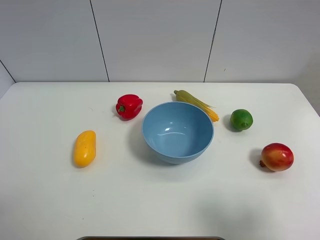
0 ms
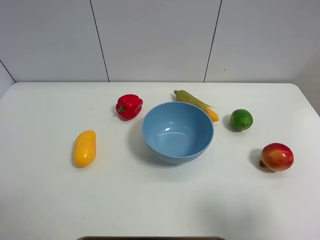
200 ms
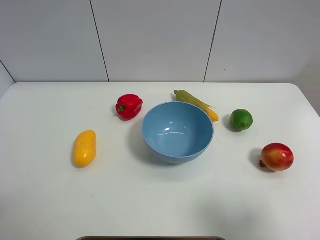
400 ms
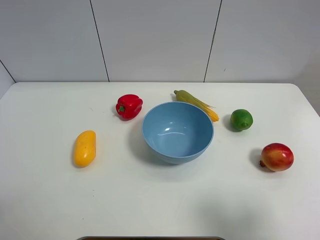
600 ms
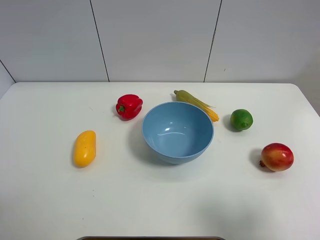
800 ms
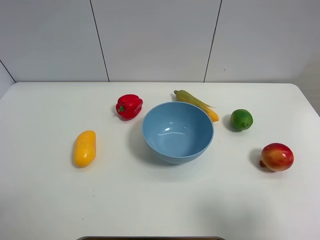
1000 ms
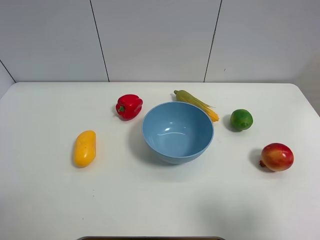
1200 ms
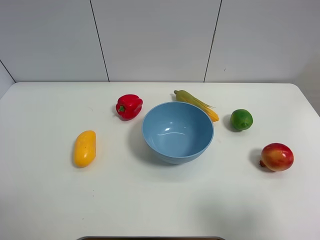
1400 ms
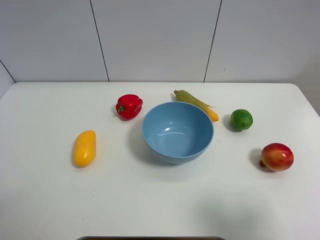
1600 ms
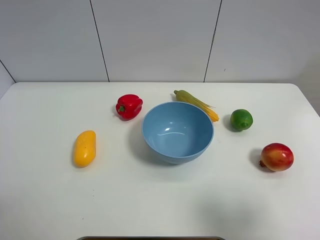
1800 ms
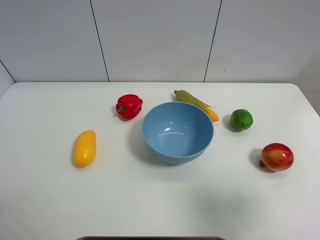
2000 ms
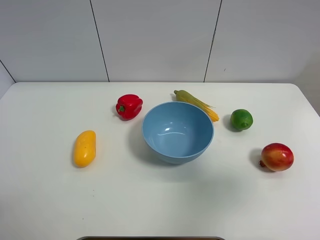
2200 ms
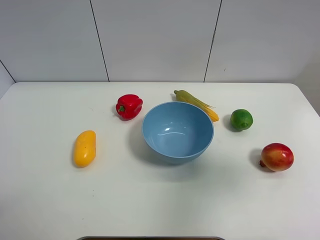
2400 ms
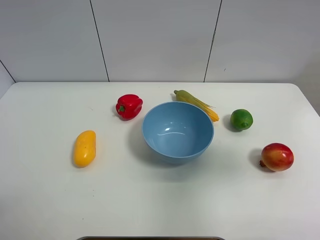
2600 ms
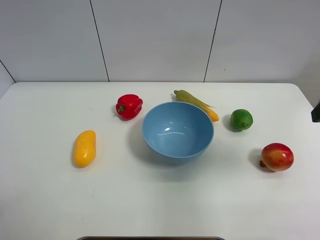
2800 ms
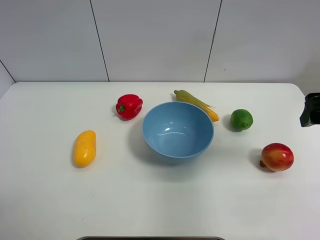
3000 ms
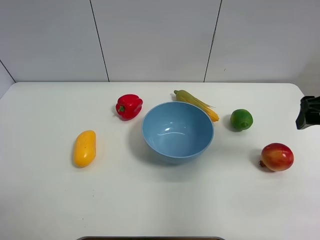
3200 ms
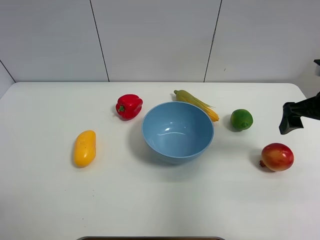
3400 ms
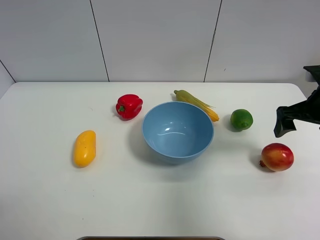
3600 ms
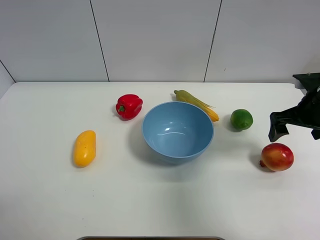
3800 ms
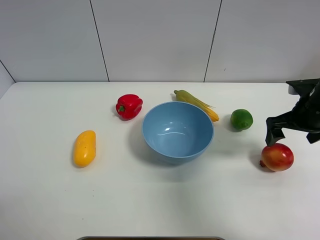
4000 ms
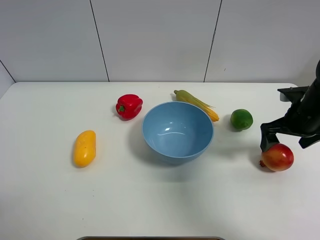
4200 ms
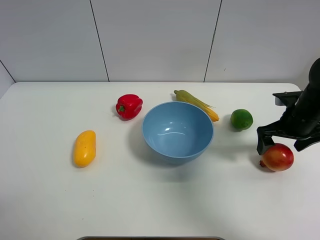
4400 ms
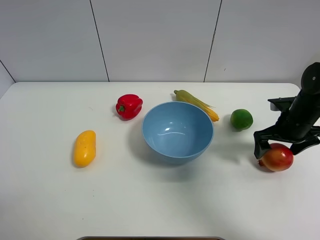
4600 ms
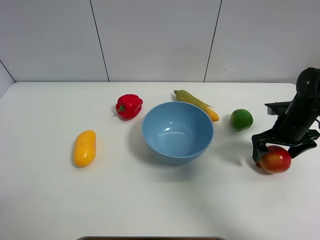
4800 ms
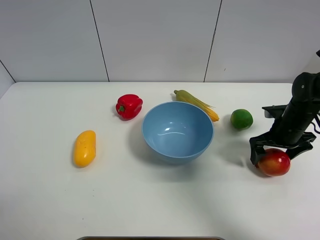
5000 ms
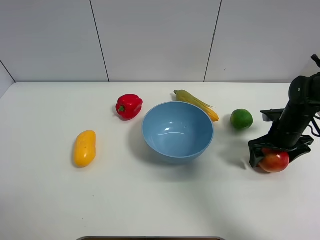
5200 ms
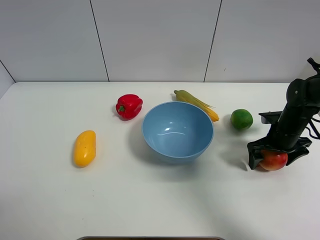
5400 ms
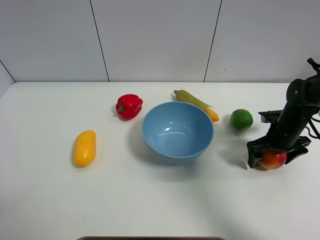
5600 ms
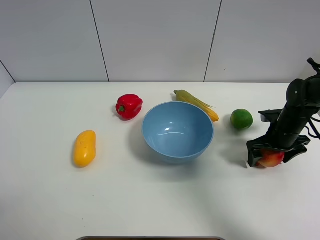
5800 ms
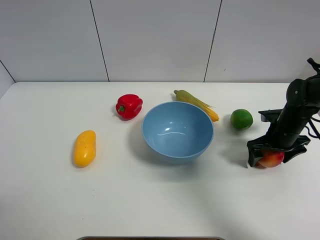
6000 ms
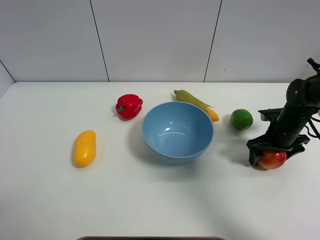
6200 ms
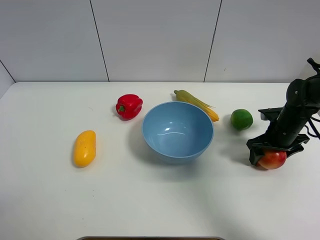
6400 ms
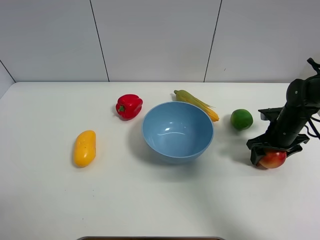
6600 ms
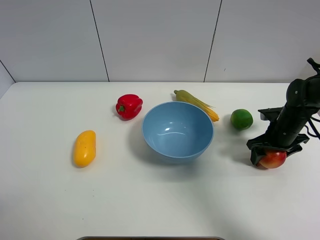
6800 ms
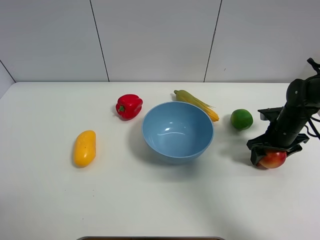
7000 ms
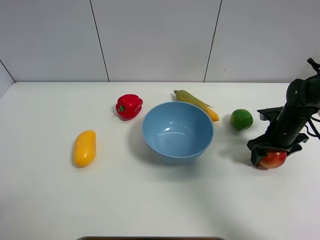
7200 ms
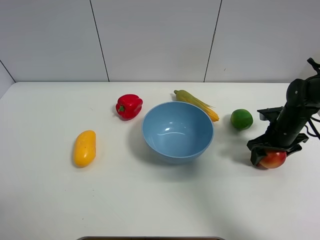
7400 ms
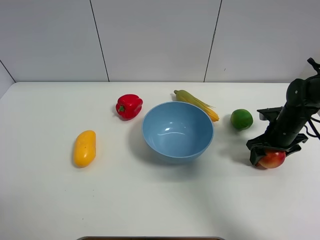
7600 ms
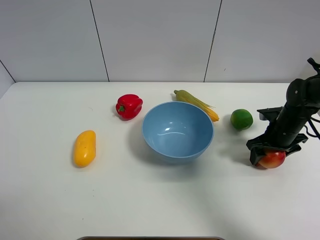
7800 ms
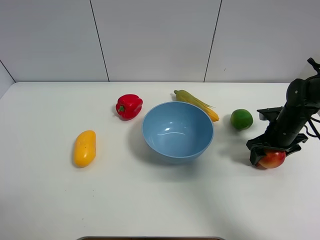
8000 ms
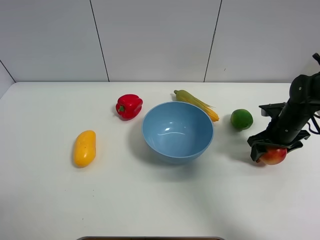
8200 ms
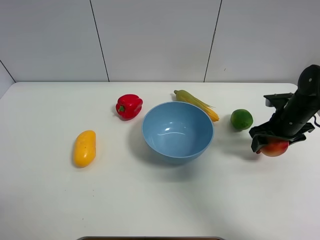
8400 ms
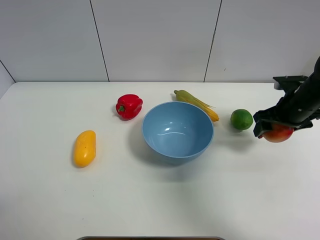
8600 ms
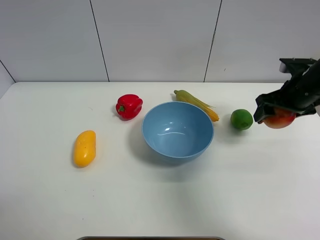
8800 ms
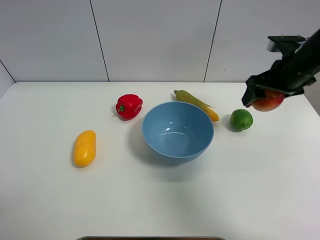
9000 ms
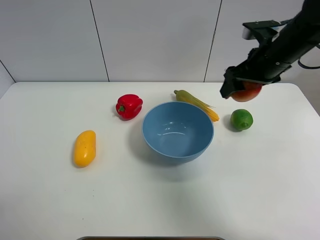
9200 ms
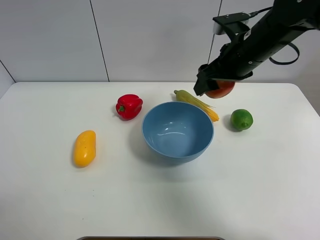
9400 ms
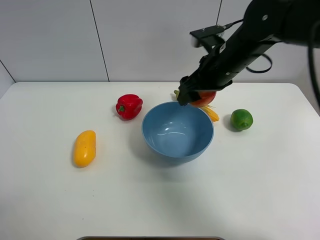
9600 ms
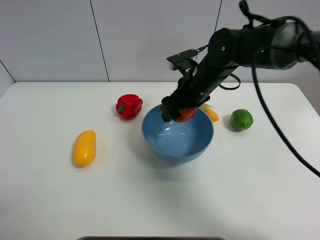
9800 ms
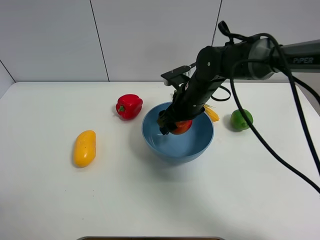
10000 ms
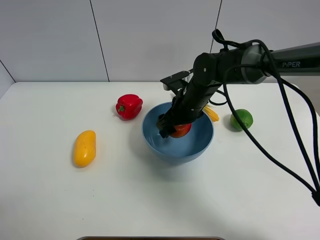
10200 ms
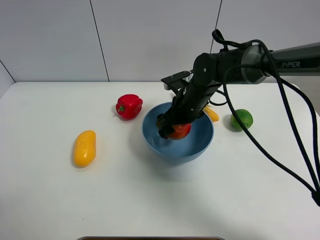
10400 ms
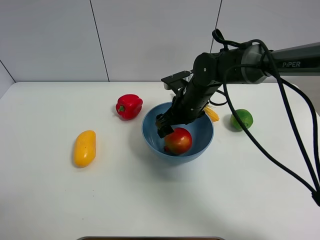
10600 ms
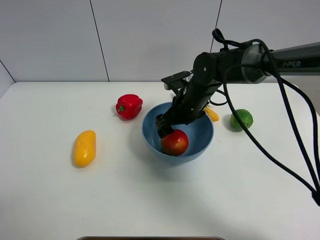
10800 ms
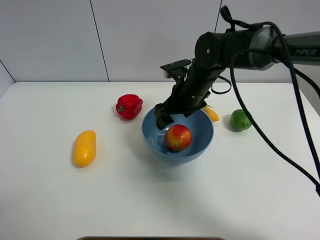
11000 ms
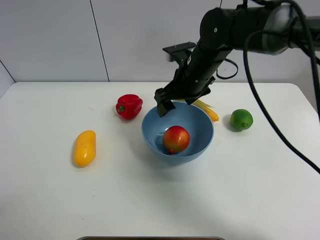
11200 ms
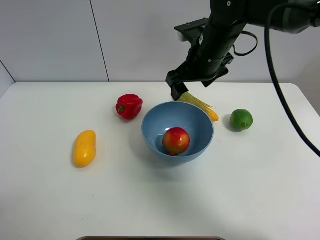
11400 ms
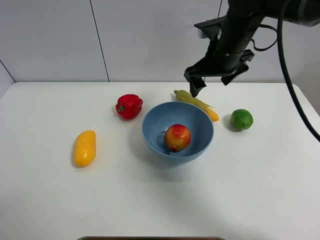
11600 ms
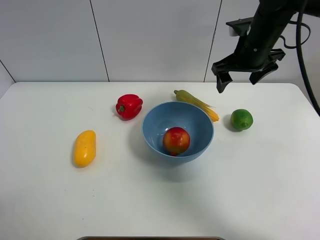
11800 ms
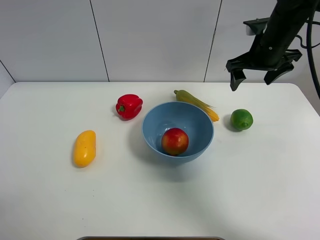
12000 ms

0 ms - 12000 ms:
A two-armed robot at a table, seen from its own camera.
Task of the whole recording: Put the three fruits on the table into a bowl.
Step, 0 ms - 6600 ms: Grasp the pomegranate with right gripper.
Step, 6800 ms - 11000 ms: Place the pomegranate in the blue bowl with right gripper.
0 ms - 1600 ms: The two grippers keep their place.
1600 ms - 3000 ms: The right gripper goes roughly 20 cm forward.
3000 ms - 4400 ms: The right gripper moves downward and forward, roughly 15 cm.
4400 ms - 6000 ms: The right gripper is displaced downward by about 5 cm.
6000 ms - 7600 ms: The right gripper closes.
7600 ms - 9000 ms: The right gripper heads upward, covering about 15 cm.
9000 ms - 10400 ms: The right gripper travels to the left and downward by some 20 cm.
10400 ms - 12000 ms: The right gripper is displaced to the right and upward by roughly 20 cm.

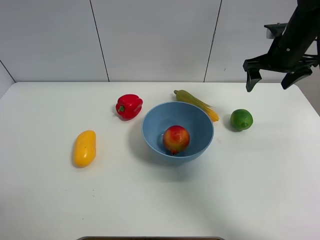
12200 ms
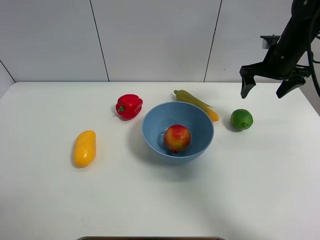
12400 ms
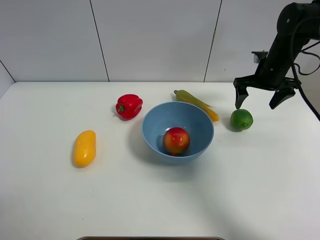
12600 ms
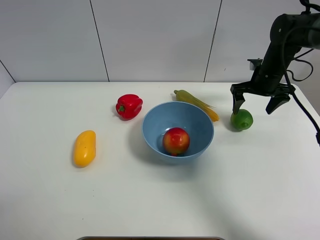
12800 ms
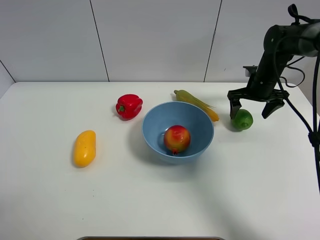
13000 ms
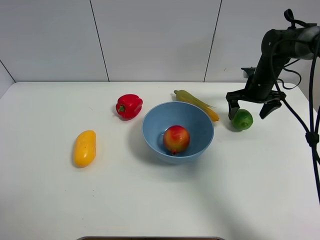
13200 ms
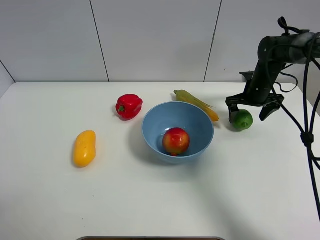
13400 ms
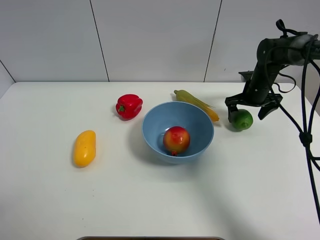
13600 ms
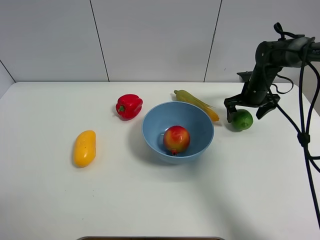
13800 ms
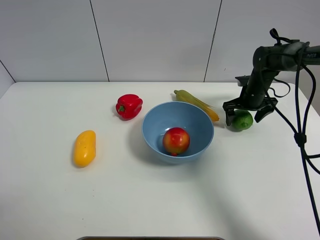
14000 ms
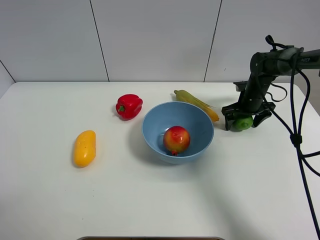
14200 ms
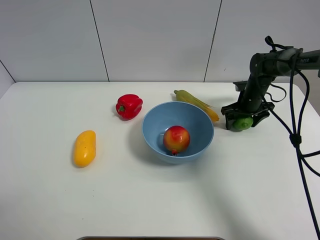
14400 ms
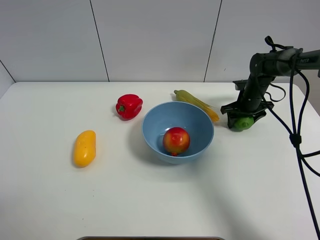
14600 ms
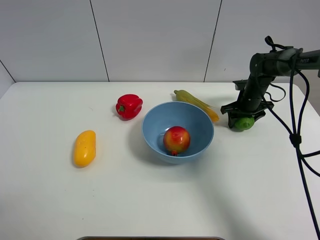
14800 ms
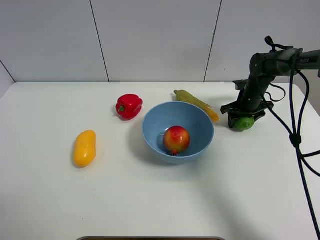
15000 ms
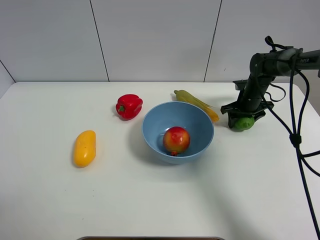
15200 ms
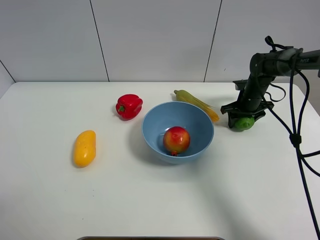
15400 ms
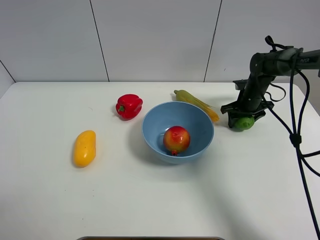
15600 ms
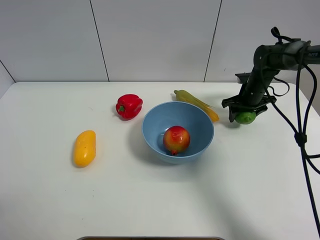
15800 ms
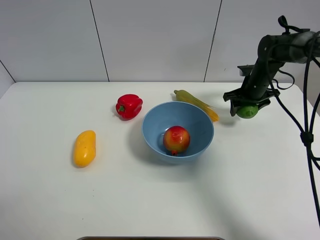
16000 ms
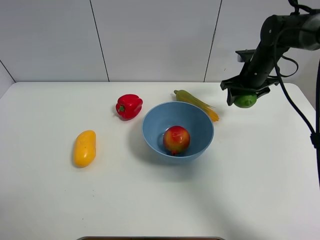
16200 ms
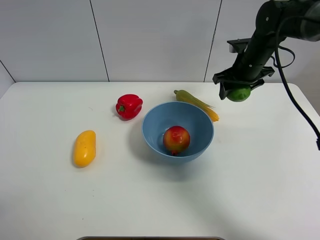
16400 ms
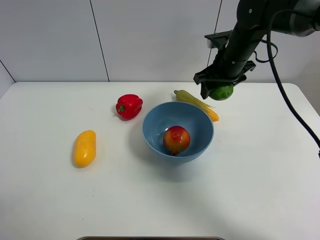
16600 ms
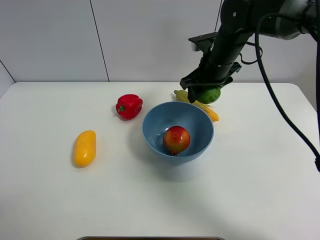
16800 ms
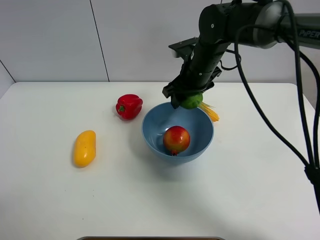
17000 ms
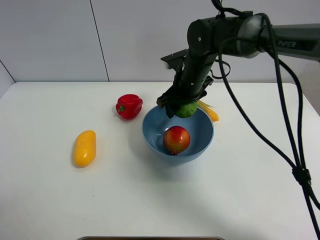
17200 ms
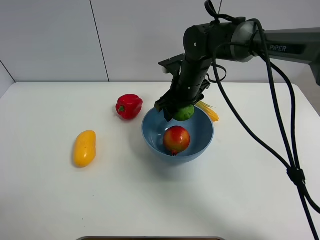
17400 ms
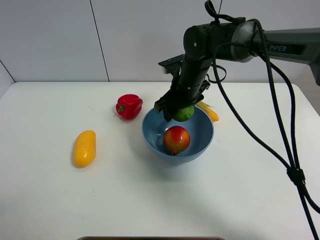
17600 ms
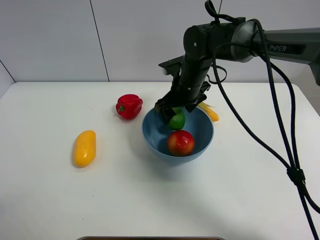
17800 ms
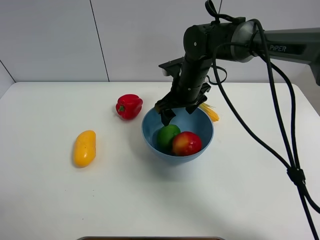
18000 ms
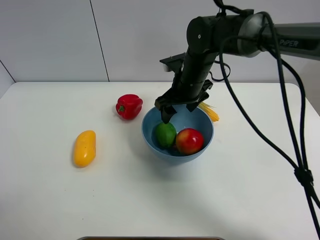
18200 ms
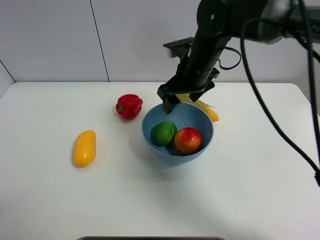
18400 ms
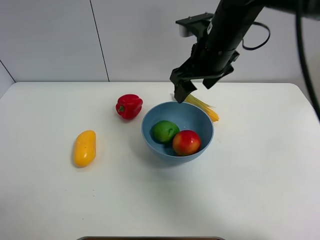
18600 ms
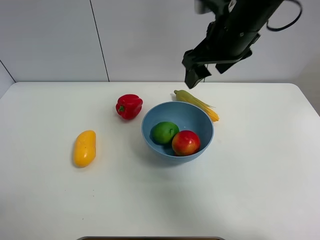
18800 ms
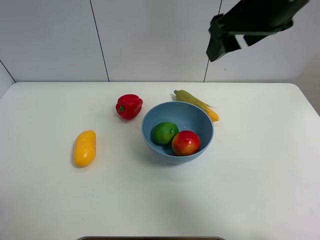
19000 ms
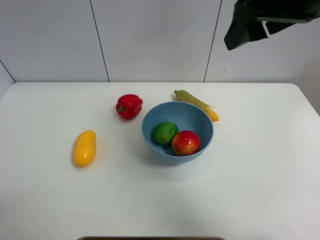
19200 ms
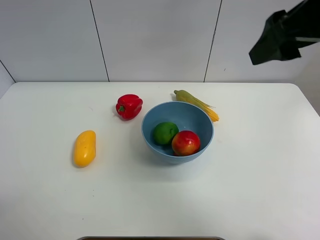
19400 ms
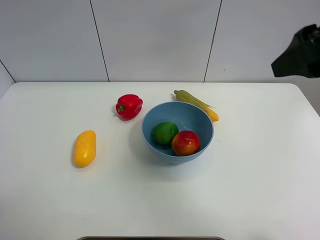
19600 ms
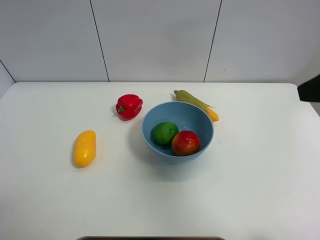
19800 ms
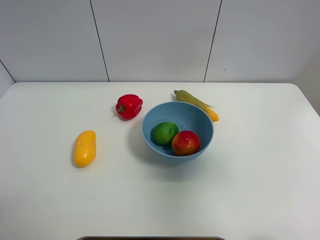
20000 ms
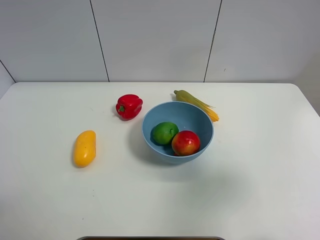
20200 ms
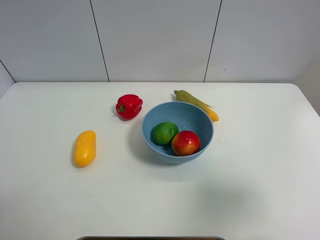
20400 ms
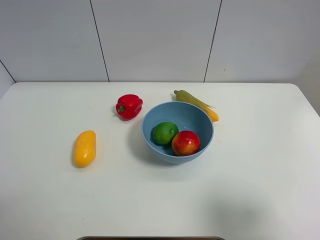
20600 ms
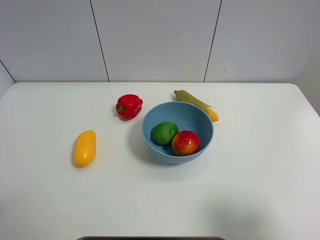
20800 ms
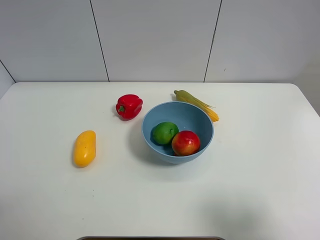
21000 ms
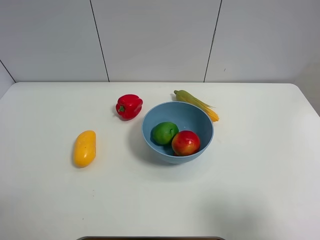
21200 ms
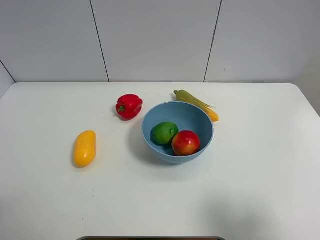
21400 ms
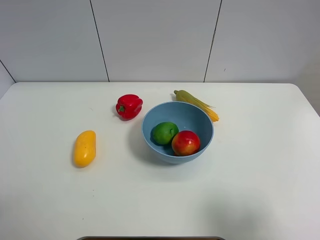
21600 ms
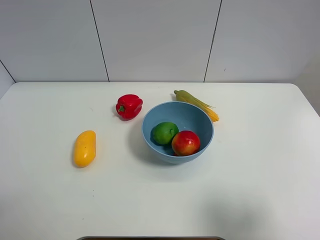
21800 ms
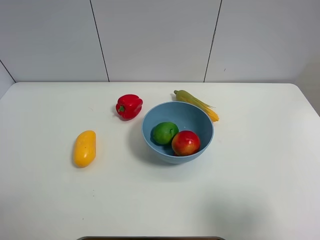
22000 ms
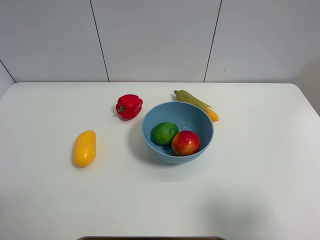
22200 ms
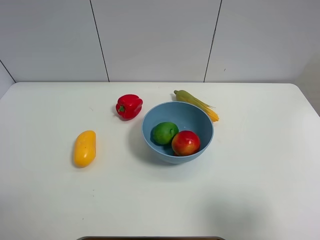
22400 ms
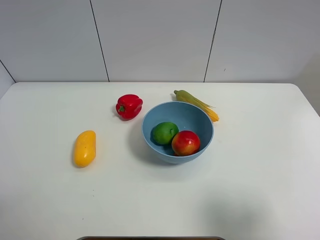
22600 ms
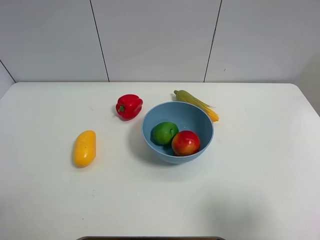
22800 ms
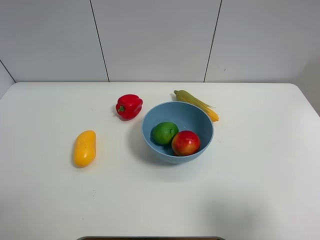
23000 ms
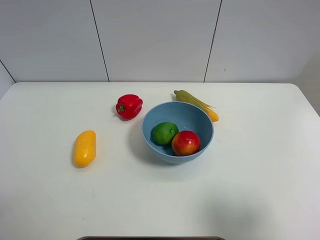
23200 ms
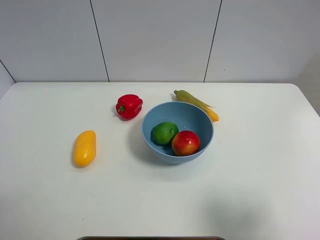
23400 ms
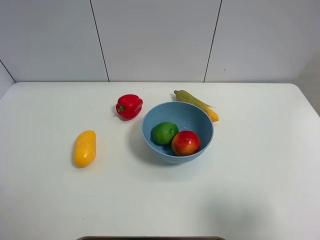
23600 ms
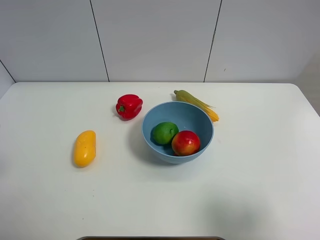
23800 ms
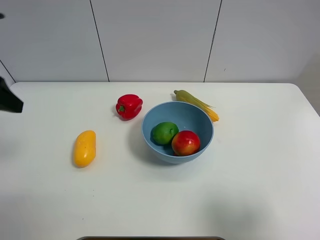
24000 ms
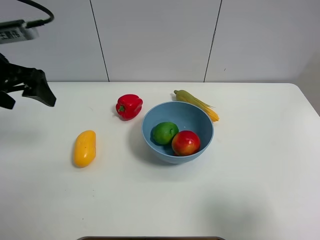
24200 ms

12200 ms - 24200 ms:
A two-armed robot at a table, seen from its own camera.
Task of the whole recording: Put the three fruits on the table into a bowl.
Step, 12200 ms - 14800 ms: Grasp the green lemon with right gripper.
Step, 15000 ms - 18200 ms: Place the green lemon in the blue bowl with right gripper.
12200 ms - 13800 ms: The right gripper heads downward, covering approximately 15 cm.
13800 ms - 15200 ms: The right gripper closes its fingers.
15200 ms - 16600 ms: The right gripper moves upward and to the left, about 20 cm.
16600 ms - 18200 ms: The right gripper moves to the left, some 10 cm, and opens.
18200 ms - 19800 ms: The right gripper is displaced backward, to the right and upward by about 35 cm.
19800 ms - 21200 ms: The right gripper heads backward, downward and to the right, covering some 15 cm.
22600 ms - 24200 ms: The left gripper shifts roughly 25 cm forward.
